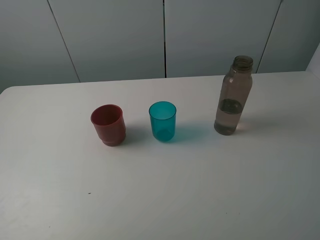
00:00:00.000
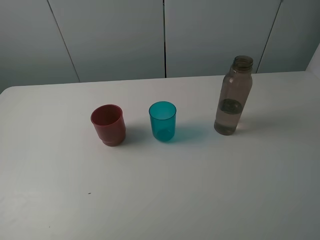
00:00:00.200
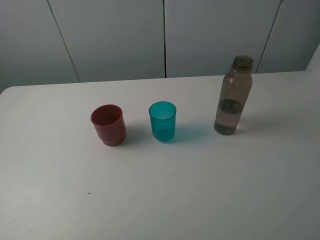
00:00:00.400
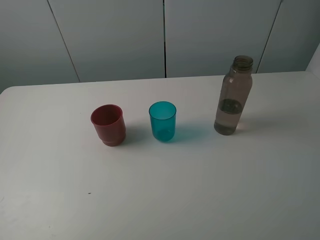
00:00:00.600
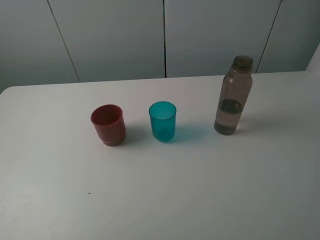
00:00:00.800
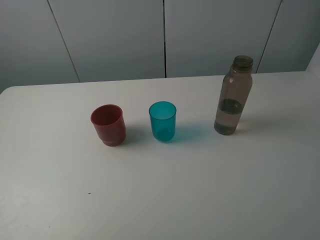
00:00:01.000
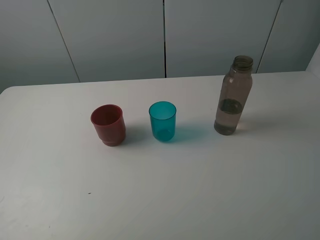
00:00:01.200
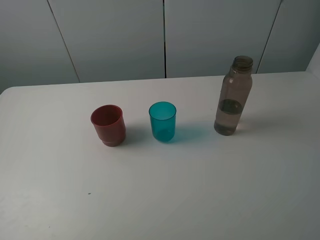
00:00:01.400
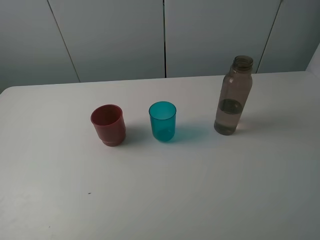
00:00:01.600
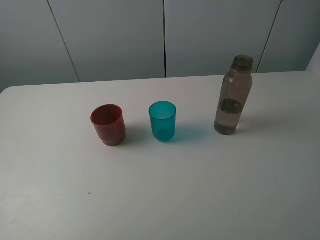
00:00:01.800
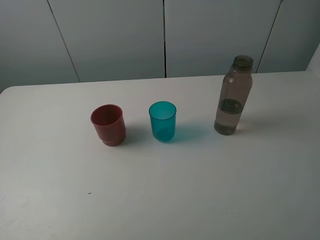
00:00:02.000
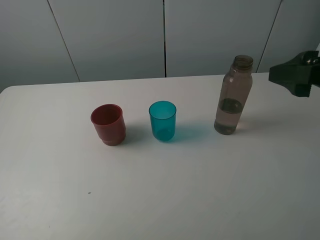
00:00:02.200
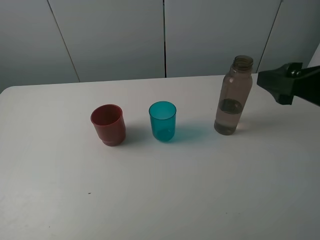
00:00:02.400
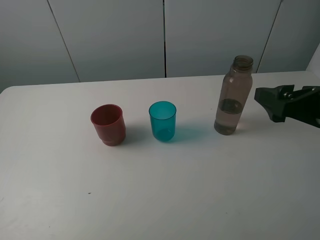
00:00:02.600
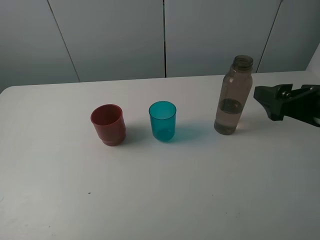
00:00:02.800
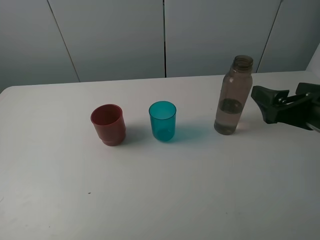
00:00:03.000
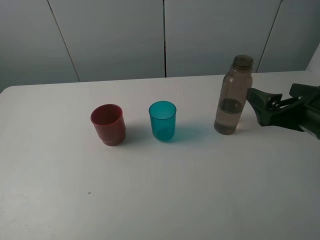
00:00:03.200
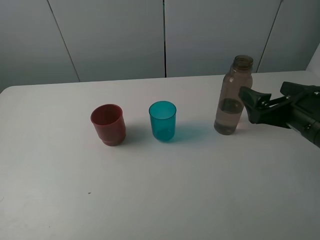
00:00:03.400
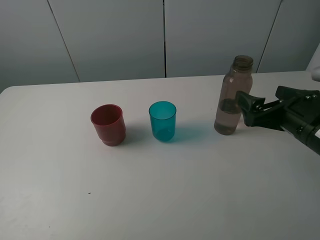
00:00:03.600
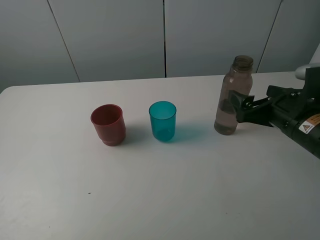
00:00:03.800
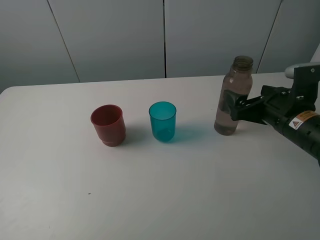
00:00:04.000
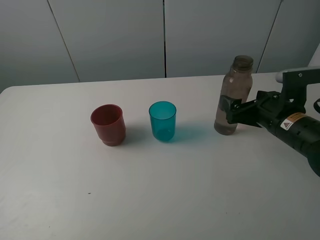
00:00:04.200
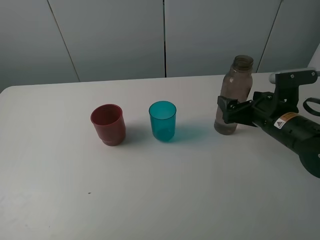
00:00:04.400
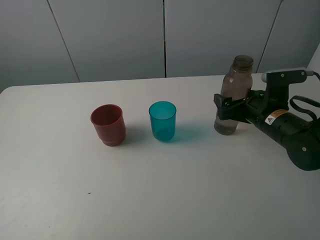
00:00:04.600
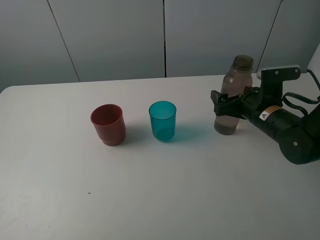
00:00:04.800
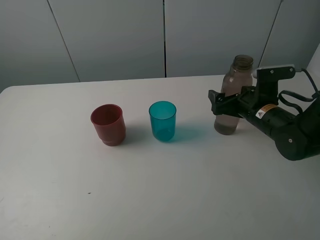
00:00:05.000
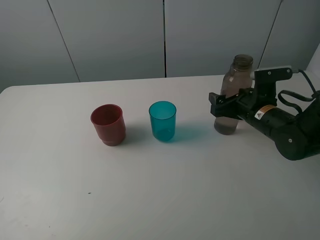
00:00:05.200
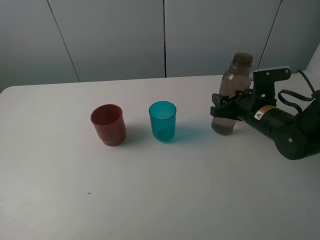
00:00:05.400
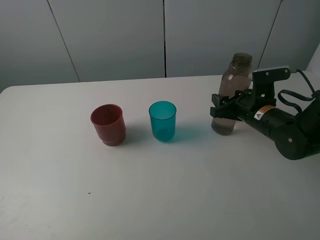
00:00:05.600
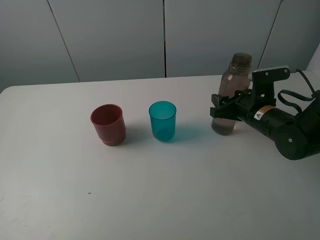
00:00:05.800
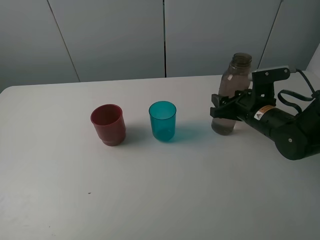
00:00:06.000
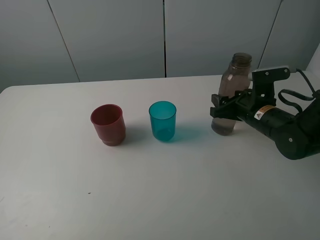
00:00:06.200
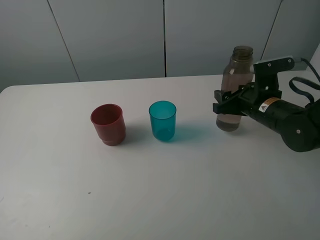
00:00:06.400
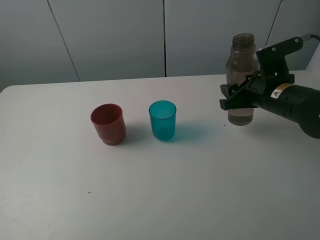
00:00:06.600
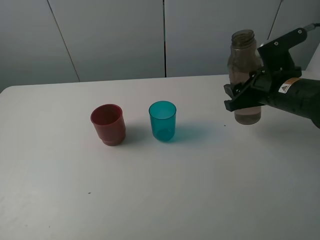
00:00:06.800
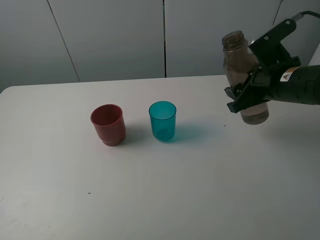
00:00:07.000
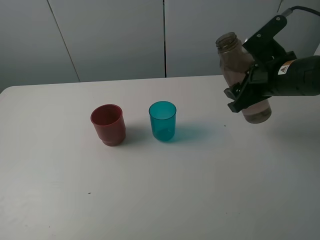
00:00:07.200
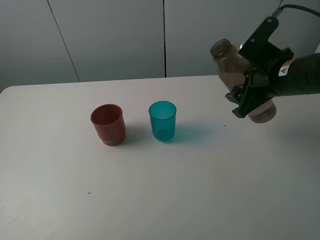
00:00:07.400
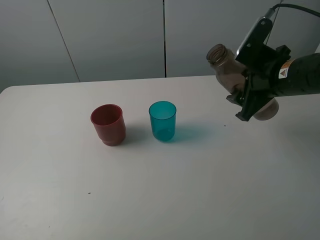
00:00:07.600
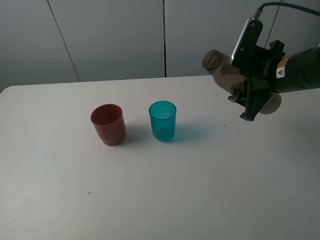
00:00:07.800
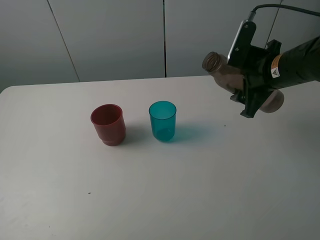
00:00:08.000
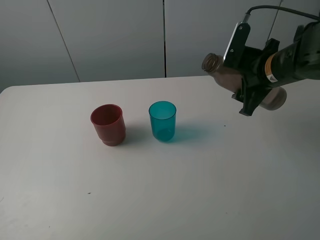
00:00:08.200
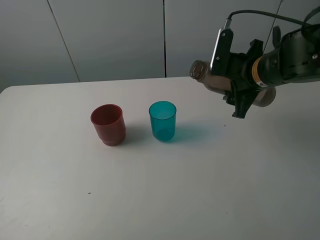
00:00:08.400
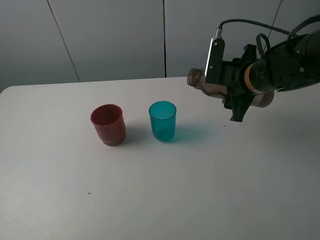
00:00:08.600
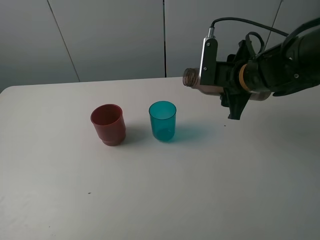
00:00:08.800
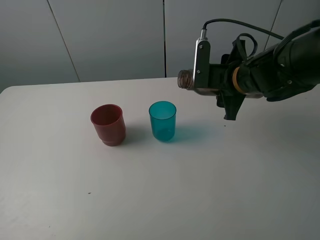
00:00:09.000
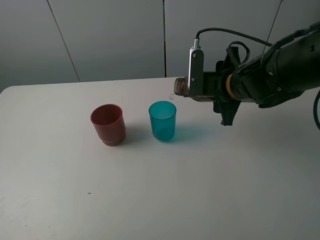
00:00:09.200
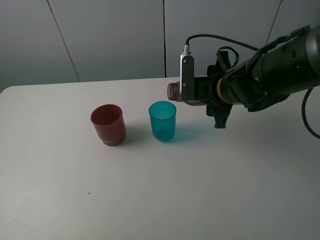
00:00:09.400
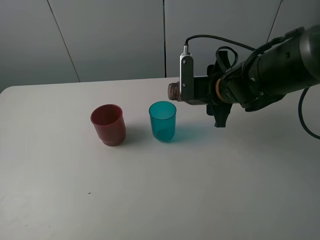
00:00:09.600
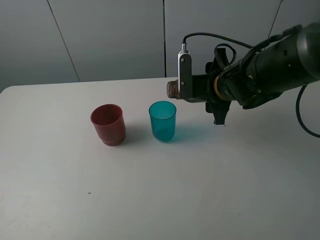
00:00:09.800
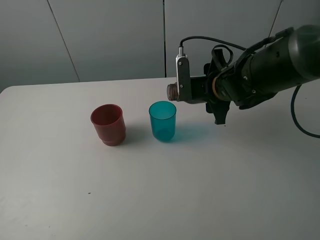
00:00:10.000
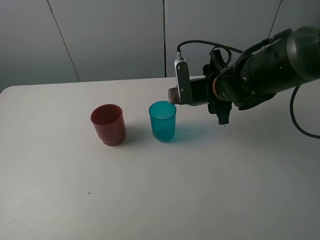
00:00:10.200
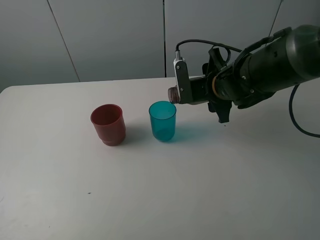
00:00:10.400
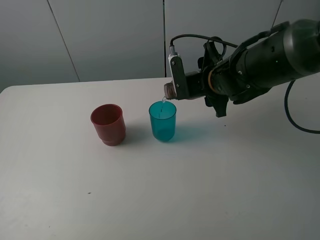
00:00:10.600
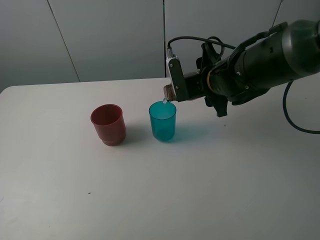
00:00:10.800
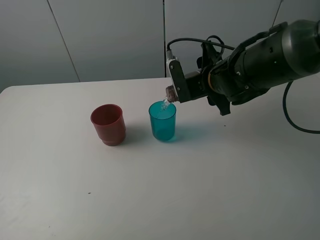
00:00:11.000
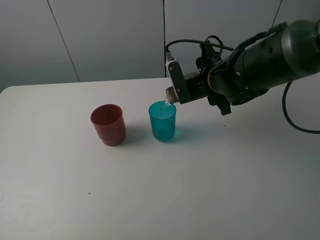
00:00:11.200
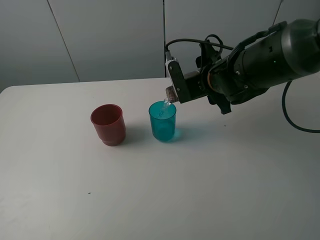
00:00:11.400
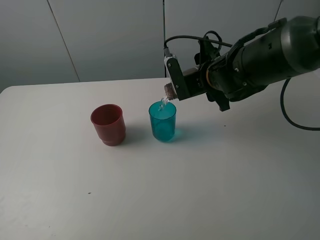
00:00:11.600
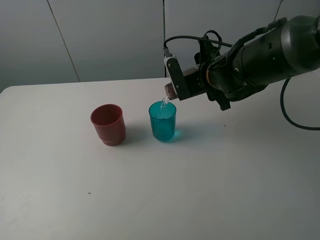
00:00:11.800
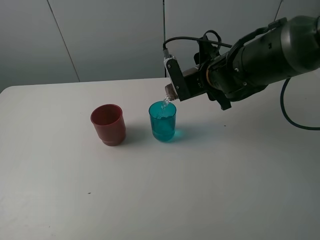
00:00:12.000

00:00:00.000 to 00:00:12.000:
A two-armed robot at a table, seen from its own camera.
Task of the whole recording: pick up the bottle and pour water into the cup, then pick up the cup containing water and pour it into another cup.
Step, 00:00:00.000 to 00:00:05.400: Grasp the brown bottle with the right gripper.
00:00:01.600 to 00:00:03.000: The right gripper travels forward and downward by approximately 15 cm.
00:00:03.000 to 00:00:04.400: The right gripper goes about 10 cm forward and downward.
00:00:04.400 to 00:00:06.000: The right gripper closes.
00:00:06.000 to 00:00:07.600: The right gripper shifts some 10 cm upward.
00:00:07.600 to 00:00:09.000: The right gripper heads to the left, covering some 5 cm.
00:00:09.000 to 00:00:10.400: The grippers move only a little.
00:00:10.400 to 00:00:12.000: The grippers stay close to where they were, moving slightly.

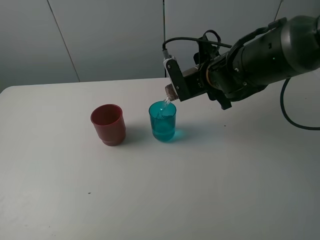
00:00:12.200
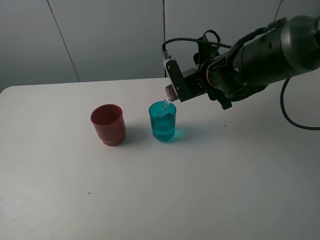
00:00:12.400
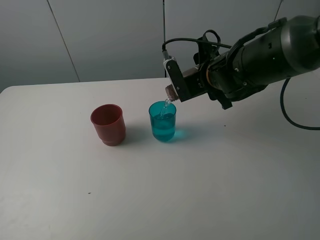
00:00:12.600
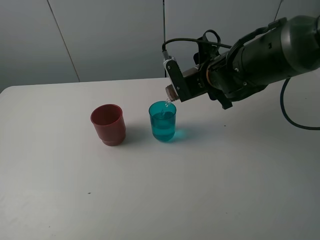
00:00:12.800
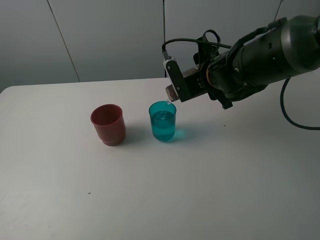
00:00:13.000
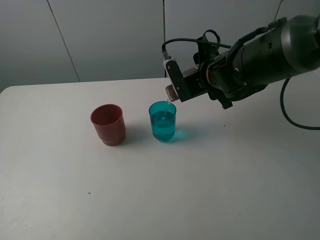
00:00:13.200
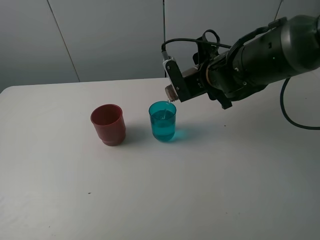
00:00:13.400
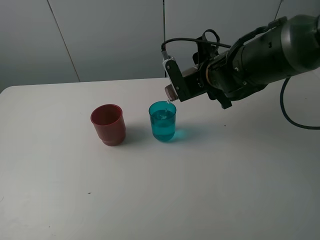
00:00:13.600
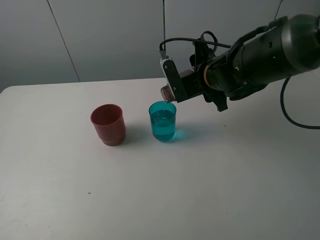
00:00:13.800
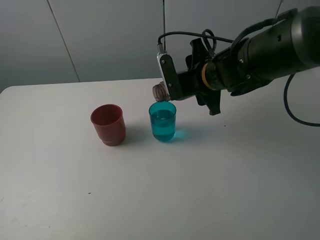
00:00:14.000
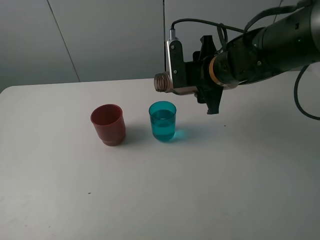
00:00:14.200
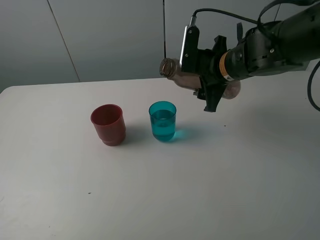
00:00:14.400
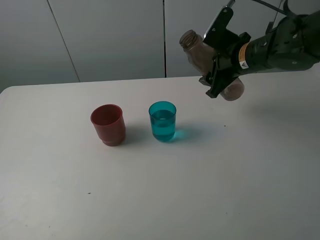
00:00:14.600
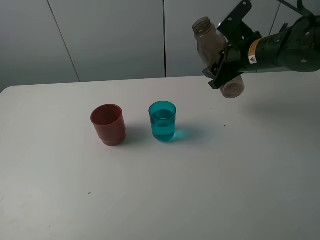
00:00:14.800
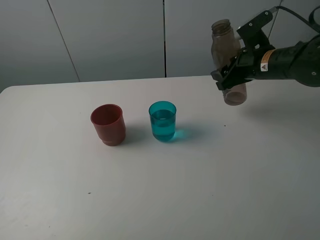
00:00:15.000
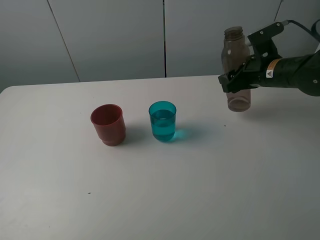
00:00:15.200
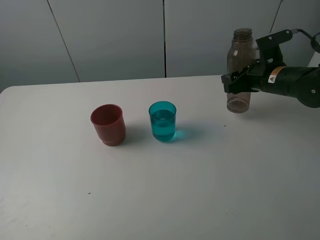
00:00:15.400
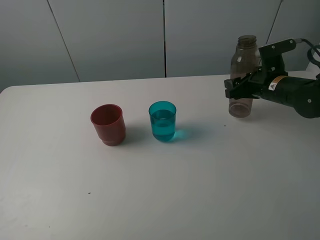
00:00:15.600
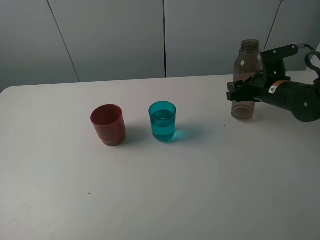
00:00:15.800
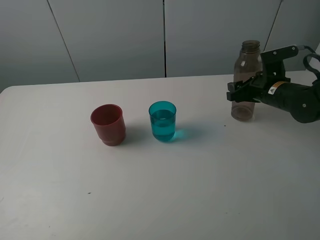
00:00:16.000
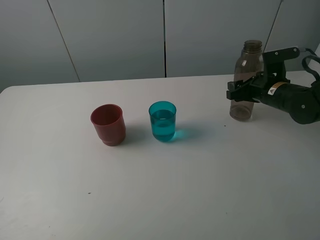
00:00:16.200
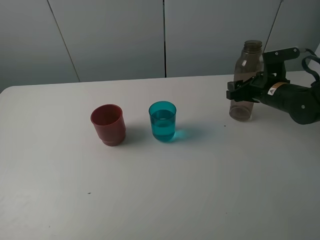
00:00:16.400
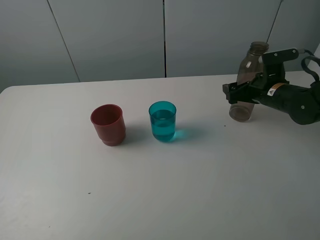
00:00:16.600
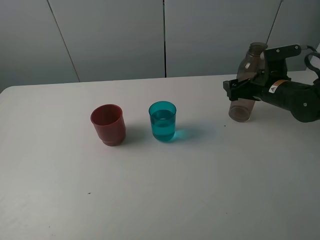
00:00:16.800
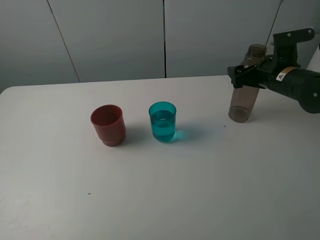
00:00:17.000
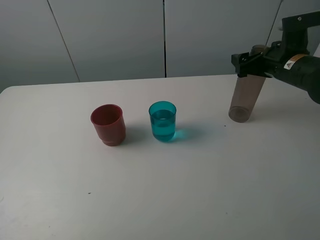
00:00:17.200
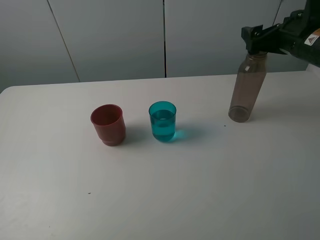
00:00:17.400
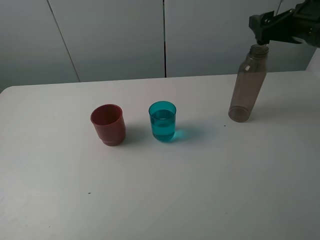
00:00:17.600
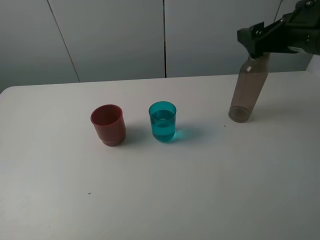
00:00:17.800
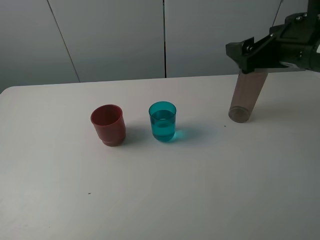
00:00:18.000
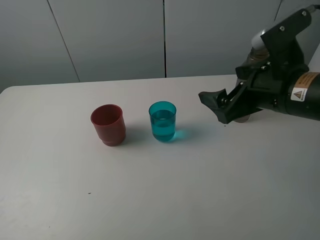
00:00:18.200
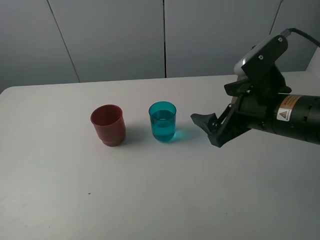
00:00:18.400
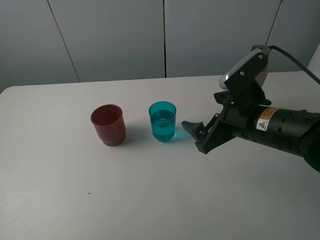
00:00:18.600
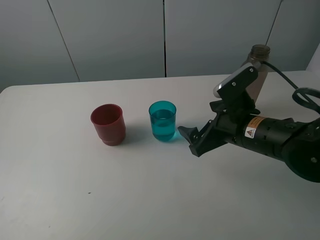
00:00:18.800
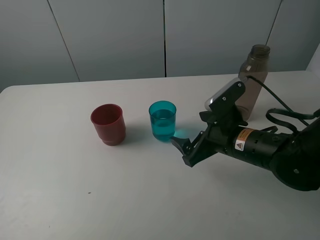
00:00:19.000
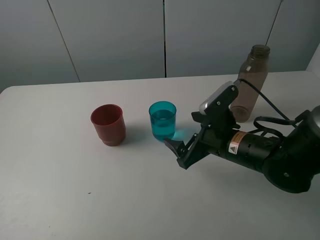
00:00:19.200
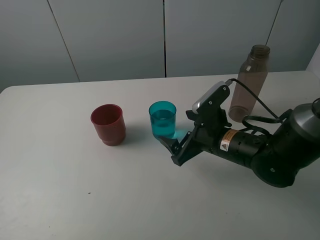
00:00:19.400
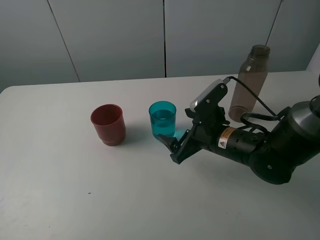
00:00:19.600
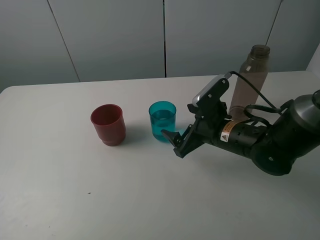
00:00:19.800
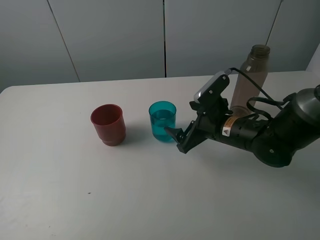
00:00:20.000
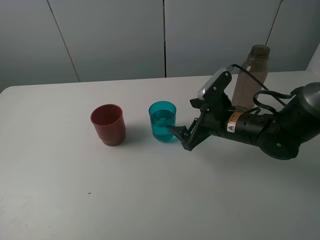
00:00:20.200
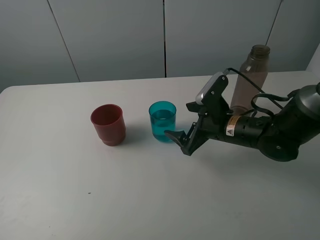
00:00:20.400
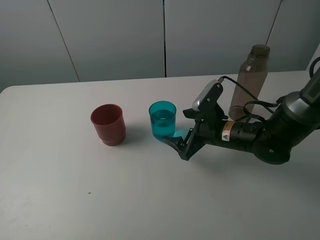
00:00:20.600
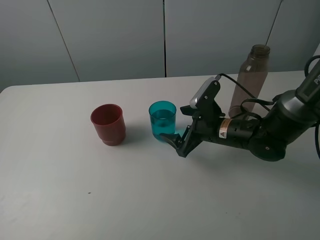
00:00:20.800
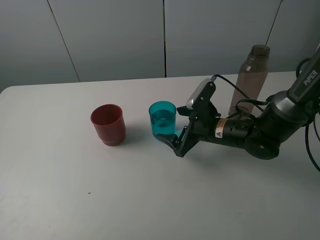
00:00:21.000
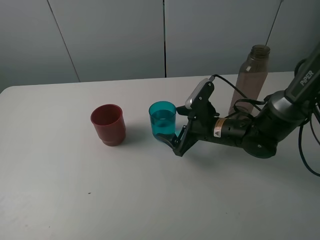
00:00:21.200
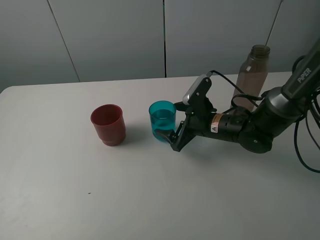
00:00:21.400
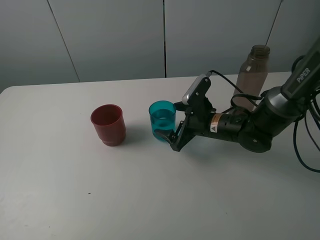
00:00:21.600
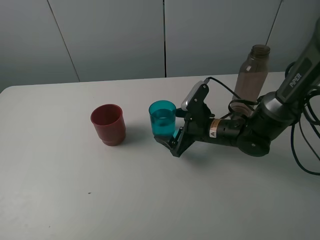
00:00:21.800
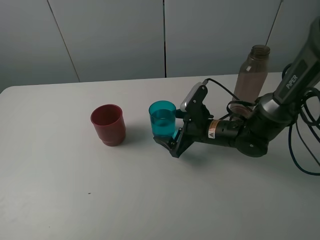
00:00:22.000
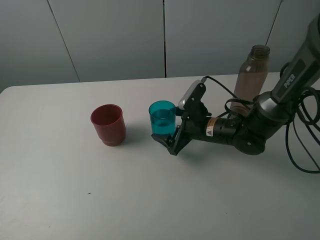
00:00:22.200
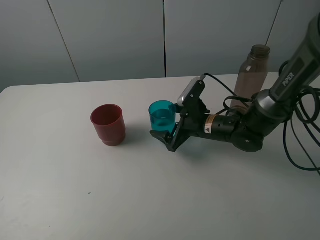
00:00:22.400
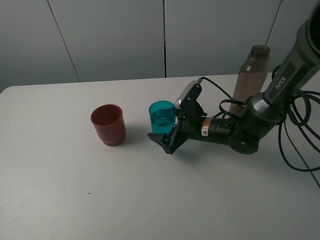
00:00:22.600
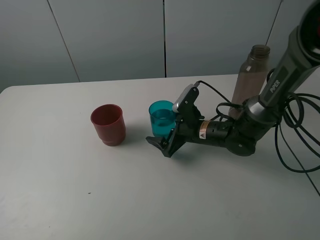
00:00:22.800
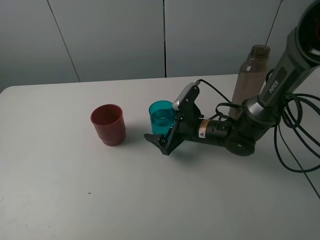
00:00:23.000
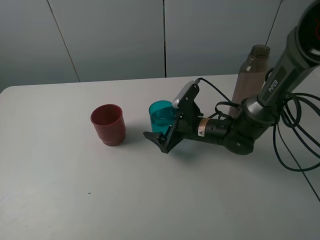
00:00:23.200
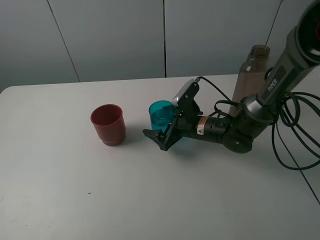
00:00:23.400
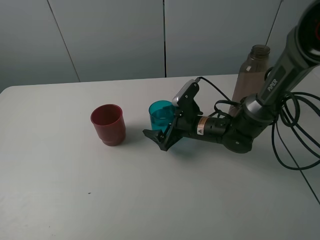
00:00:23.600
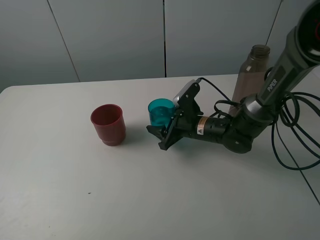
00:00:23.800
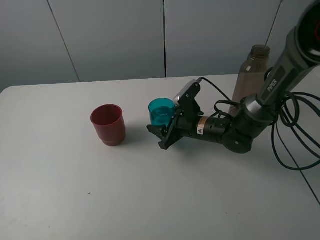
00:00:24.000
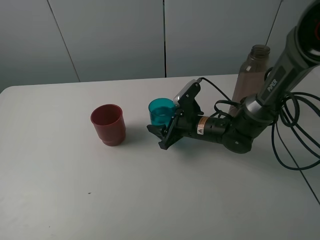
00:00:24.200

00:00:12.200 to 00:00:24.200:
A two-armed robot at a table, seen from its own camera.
Task of the whole recording: pick up the bottle and pour water into the cup, then pick up the cup containing water and pour it into another cup.
Step, 00:00:14.000 to 00:00:16.600: Place the brown bottle with the right gripper.
Step, 00:00:16.800 to 00:00:23.800: Grasp the blue cup with the right gripper.
00:00:12.200 to 00:00:13.800: The grippers stay close to where they were, moving slightly.
00:00:13.800 to 00:00:15.200: The right gripper shifts approximately 15 cm to the right.
00:00:15.200 to 00:00:16.600: The right gripper changes place by about 5 cm, and opens up.
00:00:16.600 to 00:00:18.200: The right gripper goes about 20 cm backward, upward and to the left.
00:00:18.200 to 00:00:19.800: The right gripper moves downward and to the left, roughly 15 cm.
00:00:19.800 to 00:00:21.200: The right gripper ends up roughly 5 cm from where it was.
00:00:21.200 to 00:00:22.600: The grippers stay close to where they were, moving slightly.
00:00:22.600 to 00:00:24.200: The right gripper closes up.
